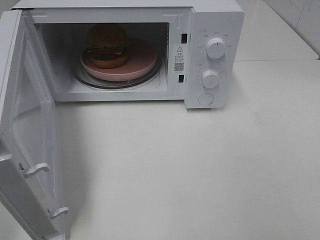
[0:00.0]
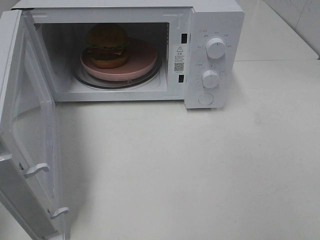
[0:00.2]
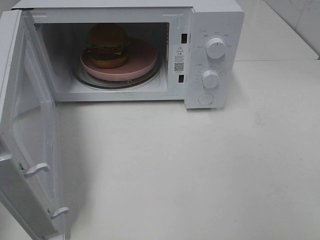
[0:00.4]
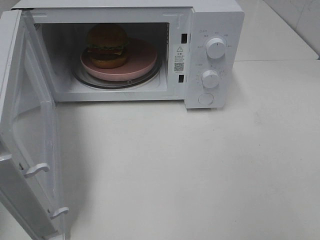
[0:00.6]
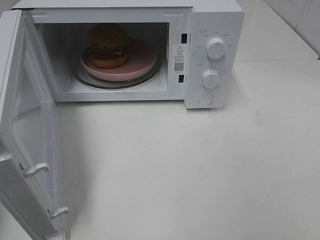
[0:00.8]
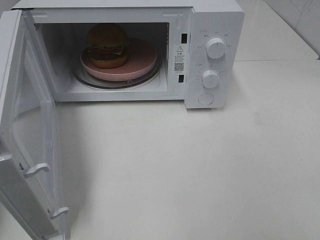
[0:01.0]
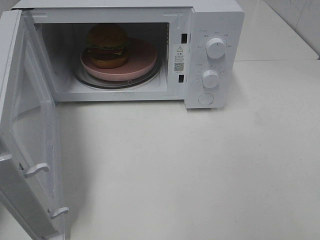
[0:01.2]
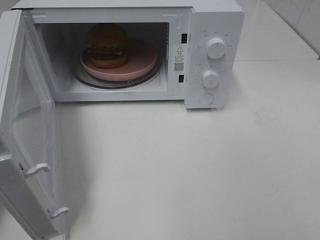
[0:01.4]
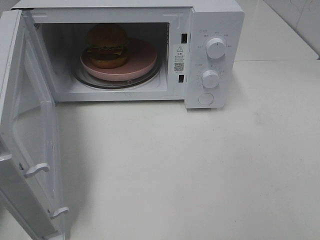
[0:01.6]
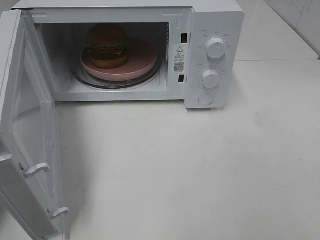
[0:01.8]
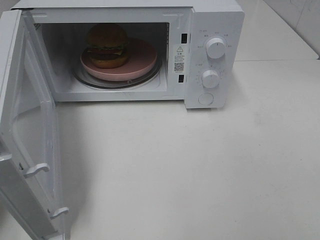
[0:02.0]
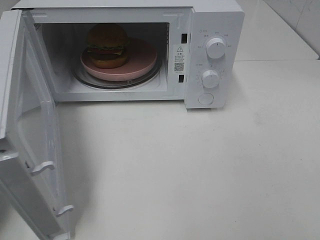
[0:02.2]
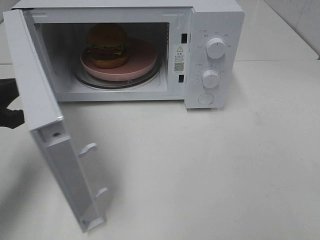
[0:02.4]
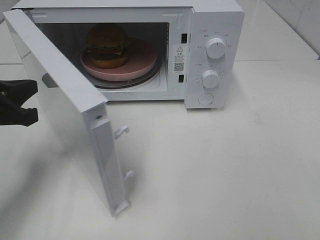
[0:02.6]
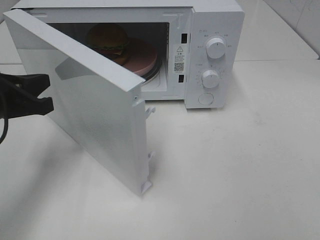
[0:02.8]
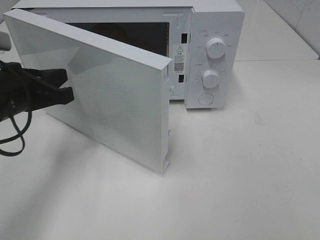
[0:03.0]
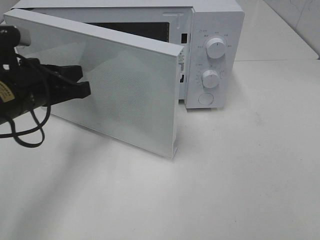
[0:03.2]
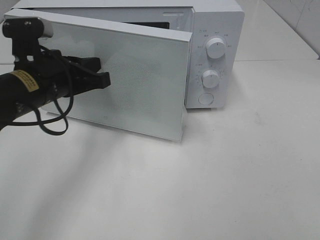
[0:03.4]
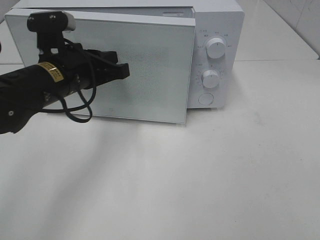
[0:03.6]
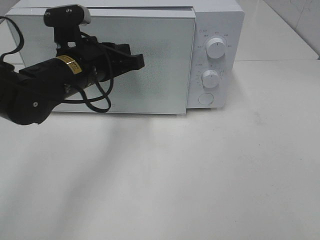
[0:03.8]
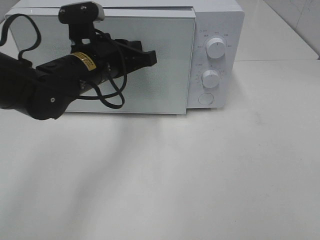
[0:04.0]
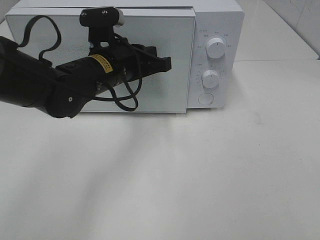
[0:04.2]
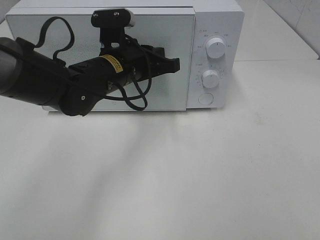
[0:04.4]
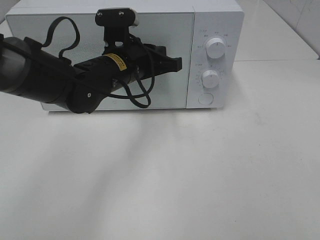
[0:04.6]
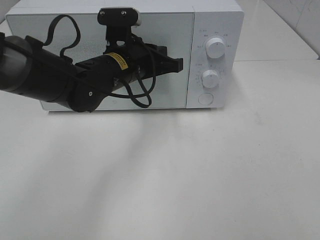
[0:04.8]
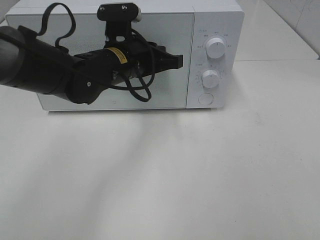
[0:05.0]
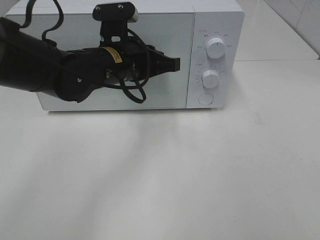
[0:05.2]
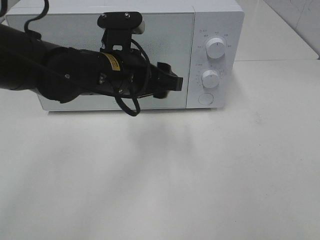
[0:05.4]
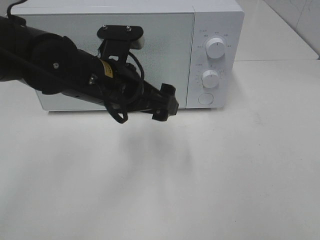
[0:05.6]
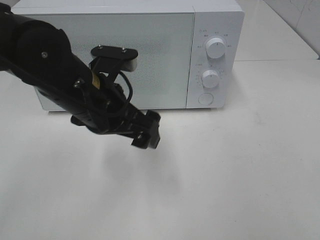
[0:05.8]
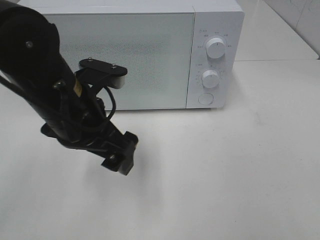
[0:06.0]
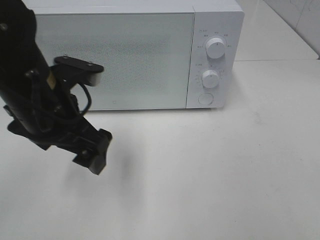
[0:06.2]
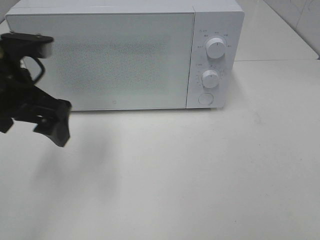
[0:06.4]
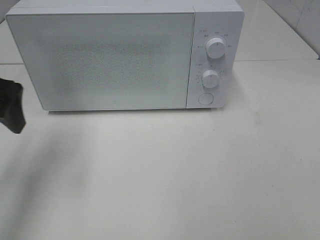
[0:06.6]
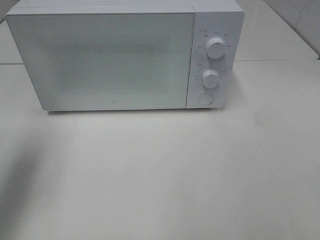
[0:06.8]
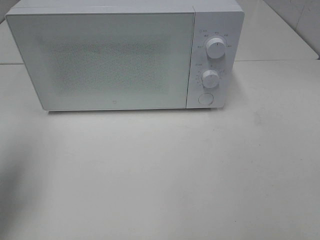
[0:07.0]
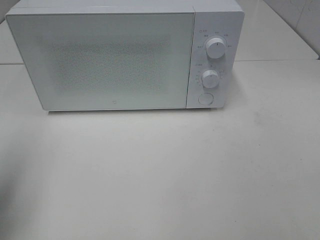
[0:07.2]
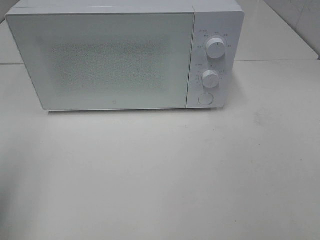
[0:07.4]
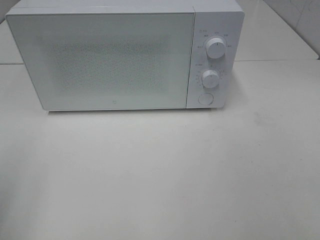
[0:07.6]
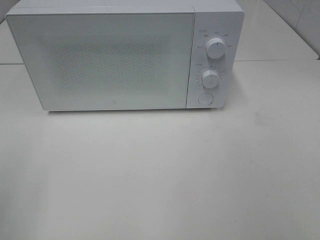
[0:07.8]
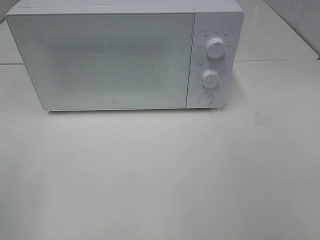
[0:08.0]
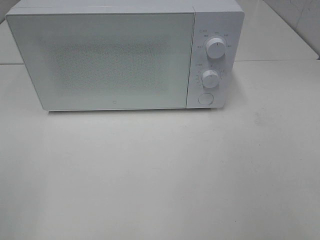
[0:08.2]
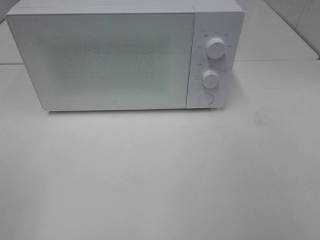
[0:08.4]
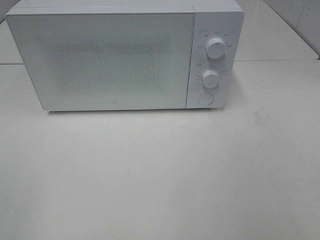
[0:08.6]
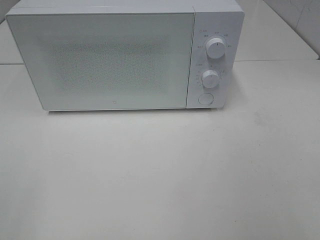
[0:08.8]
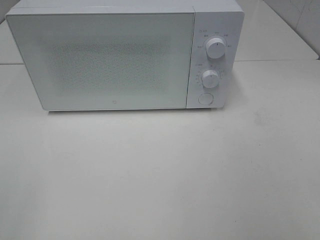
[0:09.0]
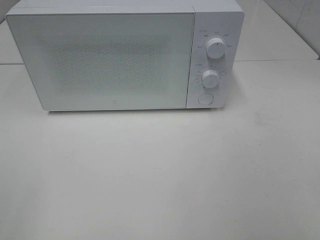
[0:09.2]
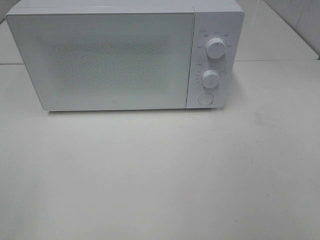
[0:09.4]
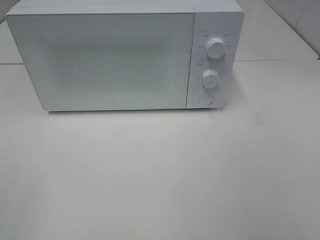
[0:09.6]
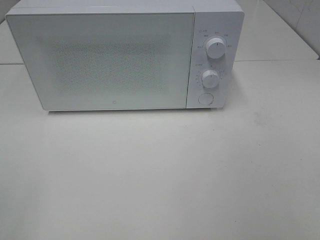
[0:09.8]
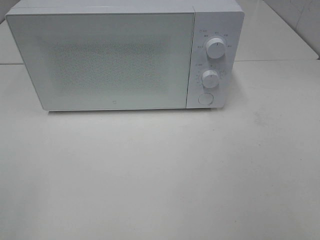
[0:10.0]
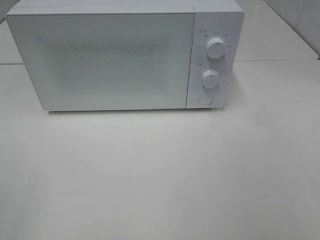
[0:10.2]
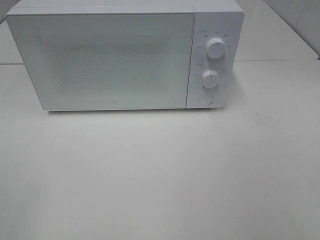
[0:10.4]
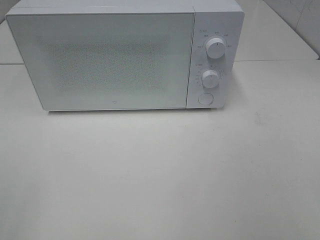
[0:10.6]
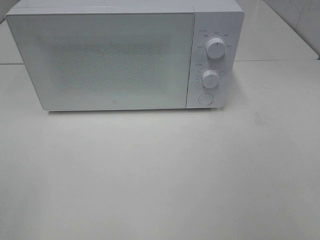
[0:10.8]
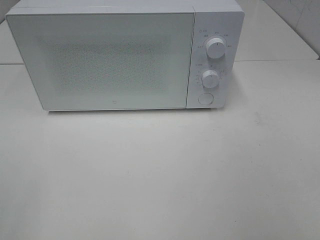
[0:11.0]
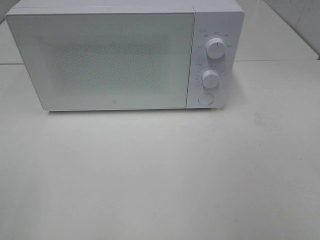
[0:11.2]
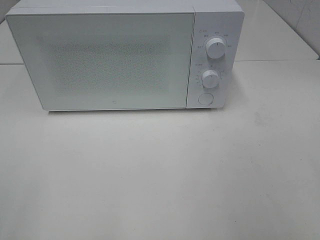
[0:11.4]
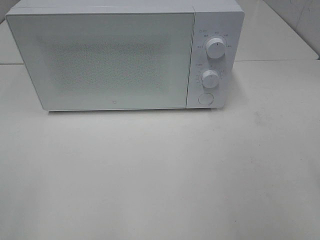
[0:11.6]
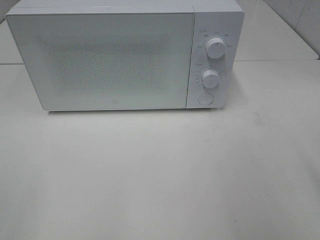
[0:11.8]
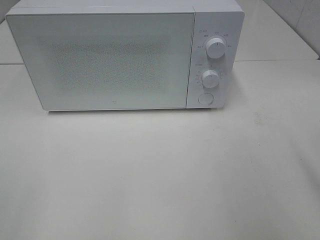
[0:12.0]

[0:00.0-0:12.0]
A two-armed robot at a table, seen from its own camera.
Task of the whole recording: Heat the burger.
Step, 0:00.0 to 0:05.0: Left hand: close the microwave door.
0:01.6 to 0:03.0: The left gripper shifts roughly 15 cm to the right and forward.
0:03.0 to 0:04.4: The left gripper travels to the right and forward by about 15 cm.
0:04.4 to 0:06.0: The left gripper travels backward by approximately 10 cm, and opens its fingers.
0:06.0 to 0:07.6: The left gripper shifts roughly 25 cm to the left and backward.
0:09.0 to 0:10.4: The two grippers keep their place.

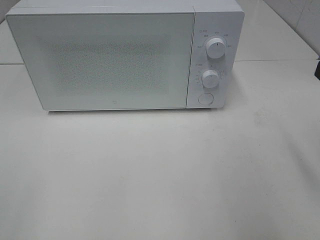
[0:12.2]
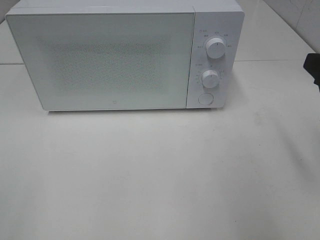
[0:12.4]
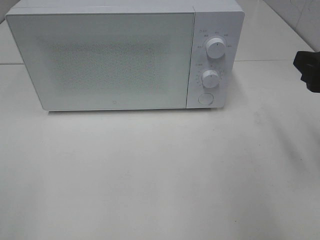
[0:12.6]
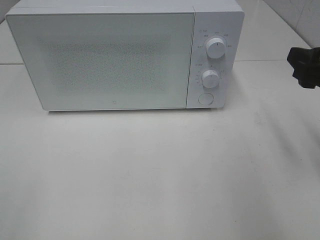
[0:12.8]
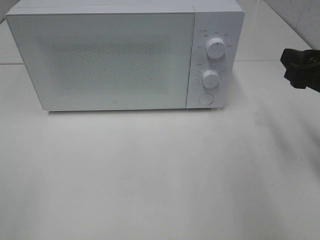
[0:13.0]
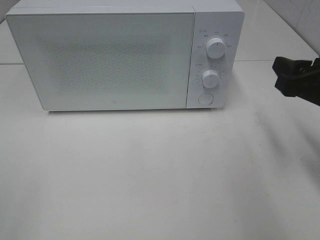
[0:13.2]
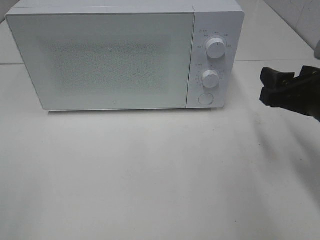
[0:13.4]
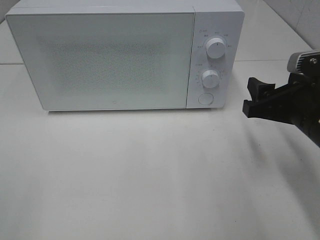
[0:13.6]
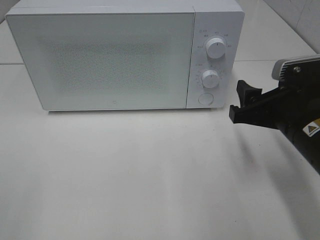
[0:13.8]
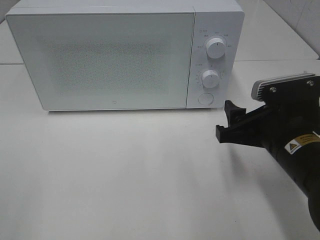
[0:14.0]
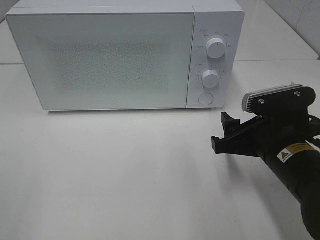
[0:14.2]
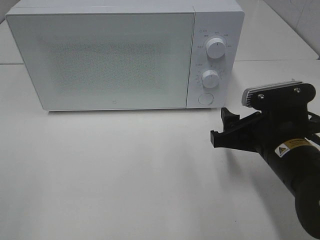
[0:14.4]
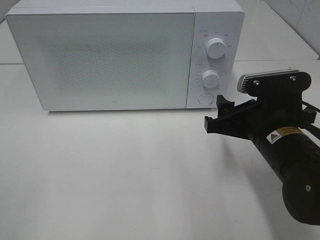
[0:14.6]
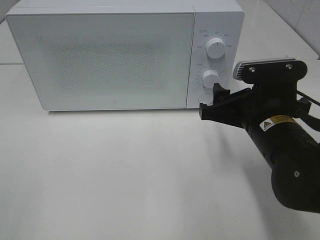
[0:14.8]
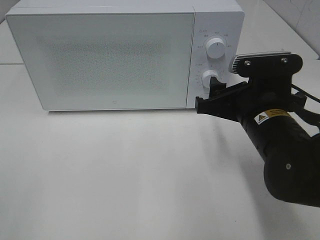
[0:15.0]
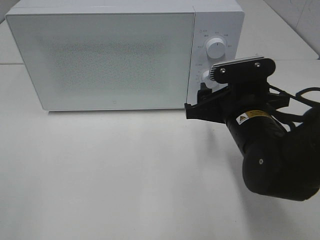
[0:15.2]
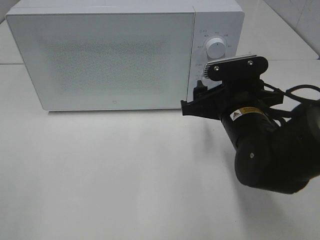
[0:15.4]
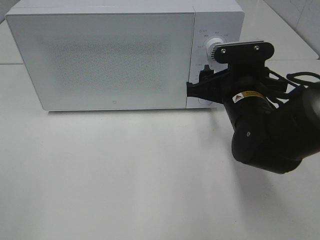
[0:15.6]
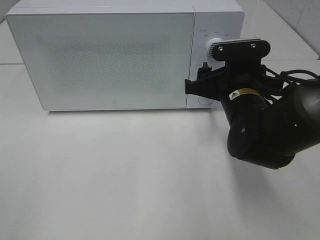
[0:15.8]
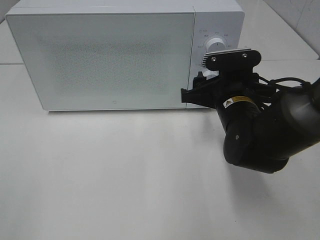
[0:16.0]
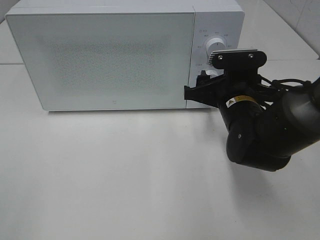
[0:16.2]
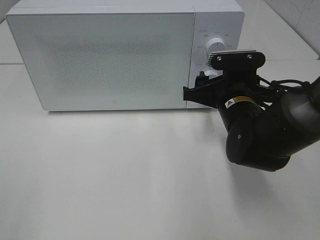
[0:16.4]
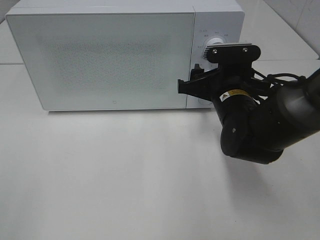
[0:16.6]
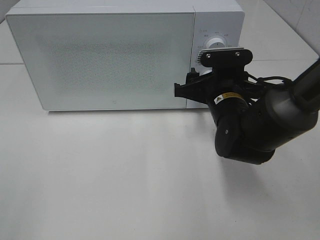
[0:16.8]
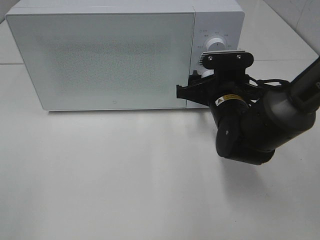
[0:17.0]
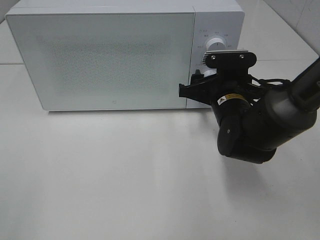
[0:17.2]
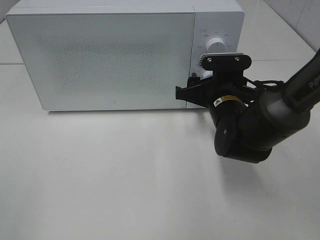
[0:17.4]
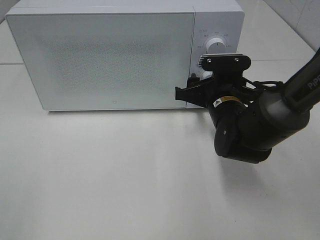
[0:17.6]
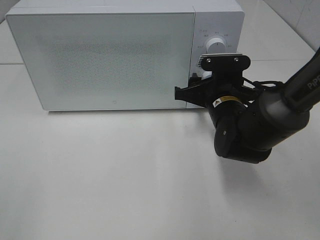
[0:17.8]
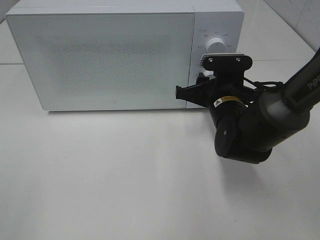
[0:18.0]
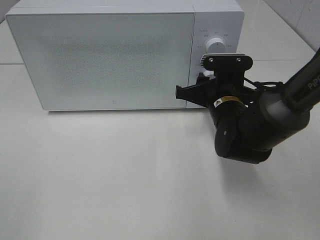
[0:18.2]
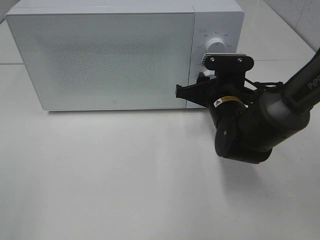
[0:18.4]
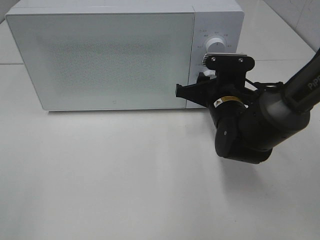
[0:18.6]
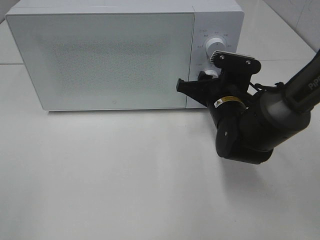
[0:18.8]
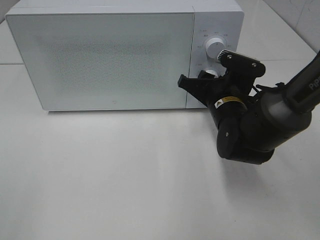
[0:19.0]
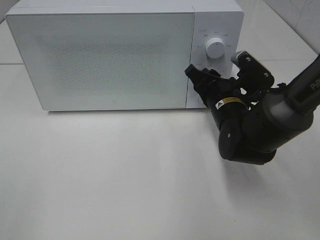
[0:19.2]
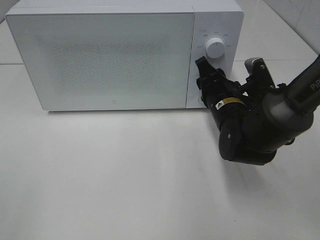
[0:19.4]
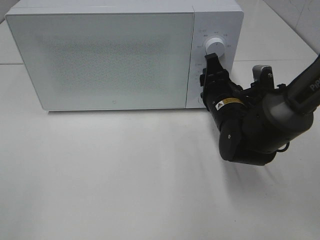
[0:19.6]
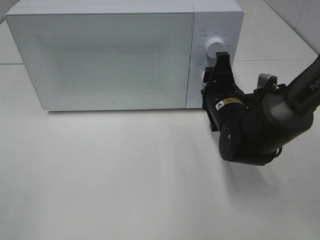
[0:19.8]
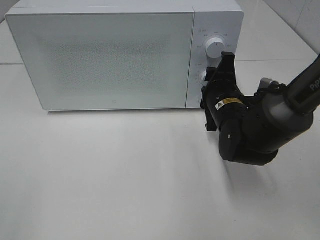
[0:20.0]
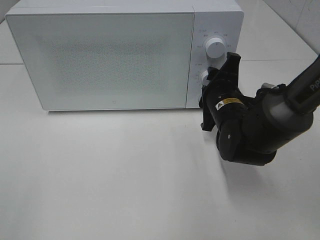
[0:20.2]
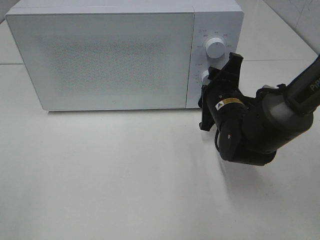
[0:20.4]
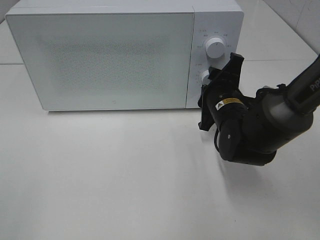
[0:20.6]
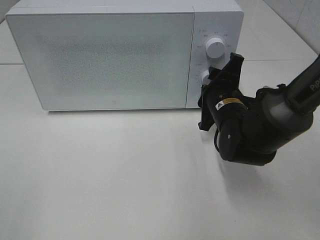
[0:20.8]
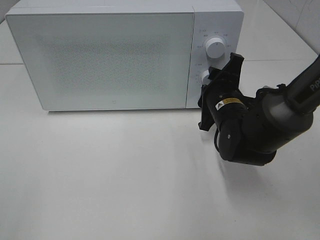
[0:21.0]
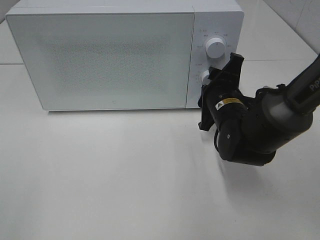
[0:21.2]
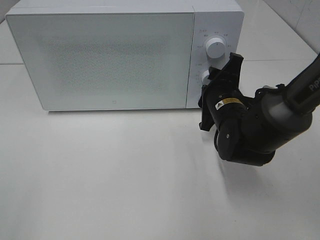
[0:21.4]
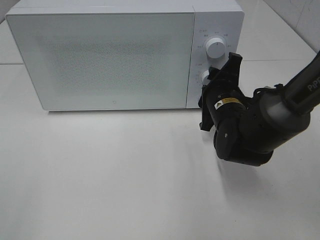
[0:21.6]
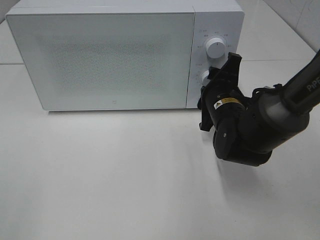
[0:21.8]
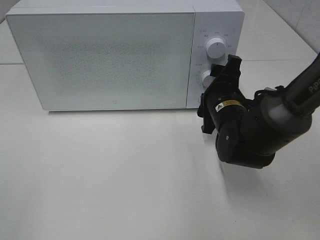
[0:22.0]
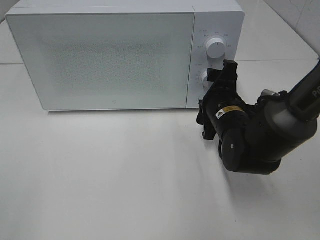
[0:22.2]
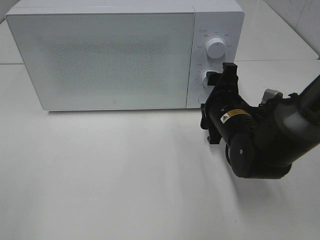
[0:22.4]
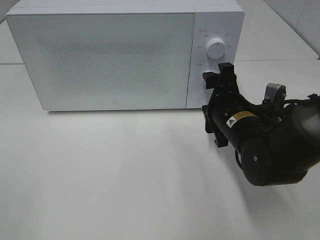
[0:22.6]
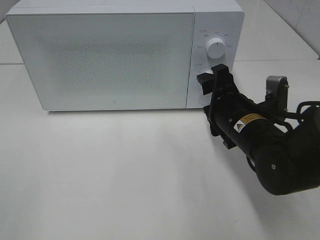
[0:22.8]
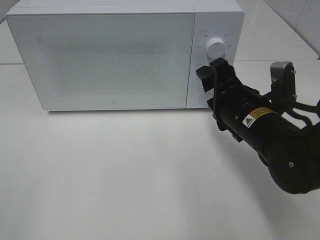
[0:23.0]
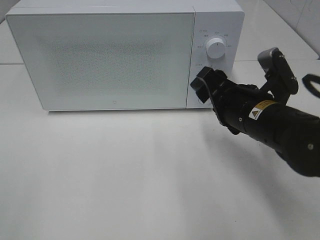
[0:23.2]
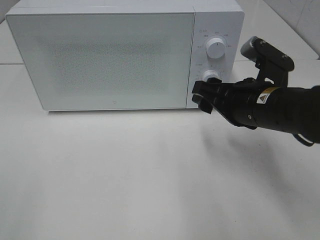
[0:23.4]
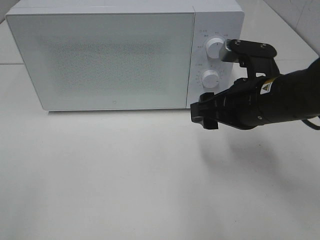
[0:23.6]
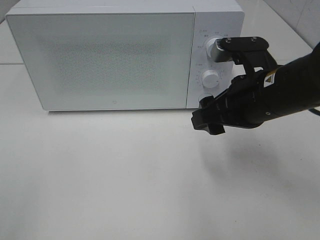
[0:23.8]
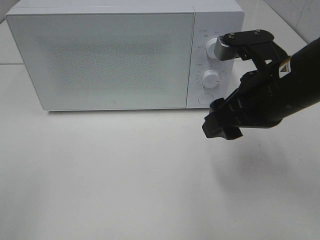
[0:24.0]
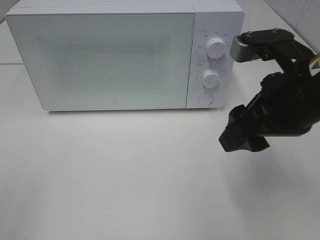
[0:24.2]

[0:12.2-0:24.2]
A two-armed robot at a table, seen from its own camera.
Task of the whole recording: Heat the burger.
Step, 0:12.2 to 0:21.8: Right hand: twist timer button.
0:12.2 to 0:13.8: The right gripper shifts approximately 15 cm downward, to the left and forward.
0:13.8 to 0:15.2: The right gripper heads to the left, covering some 5 cm.
0:15.2 to 0:16.6: The right gripper travels forward by some 5 cm.
0:16.6 to 0:18.2: The grippers make only small movements.
0:19.8 to 0:21.2: The grippers stay close to where they were, moving slightly.
0:22.6 to 0:24.2: The right gripper travels upward and backward by roughly 15 cm.
